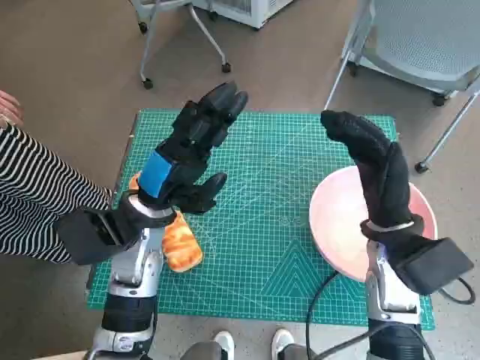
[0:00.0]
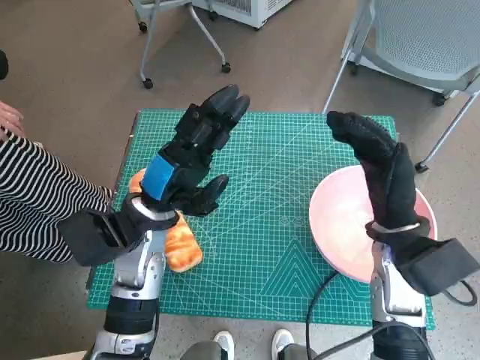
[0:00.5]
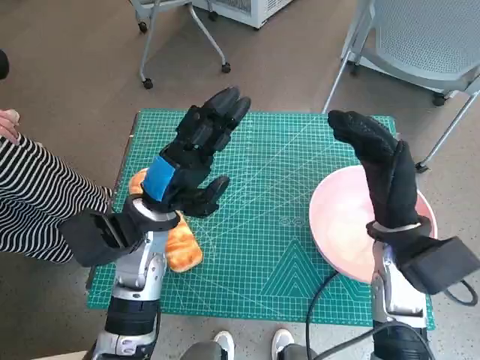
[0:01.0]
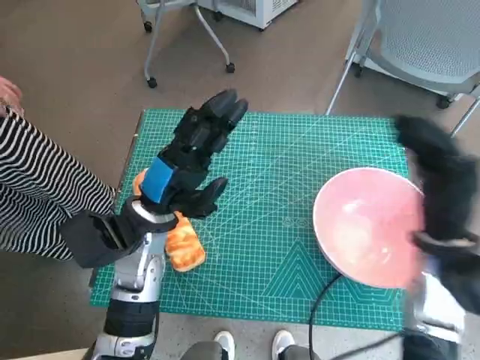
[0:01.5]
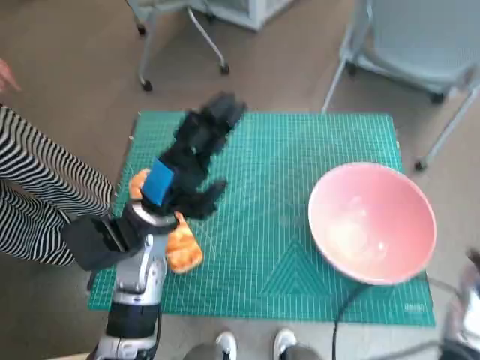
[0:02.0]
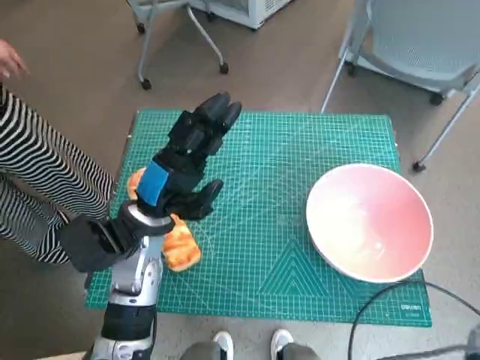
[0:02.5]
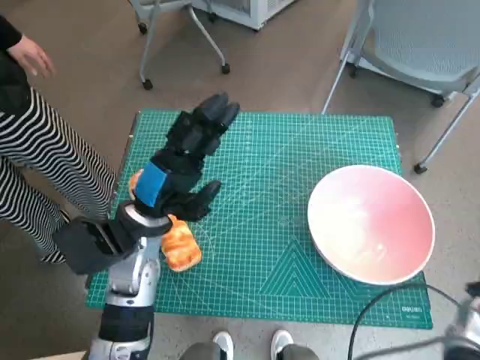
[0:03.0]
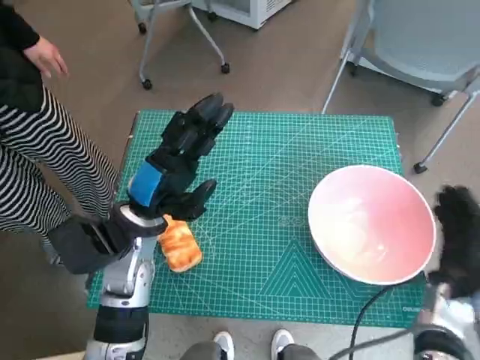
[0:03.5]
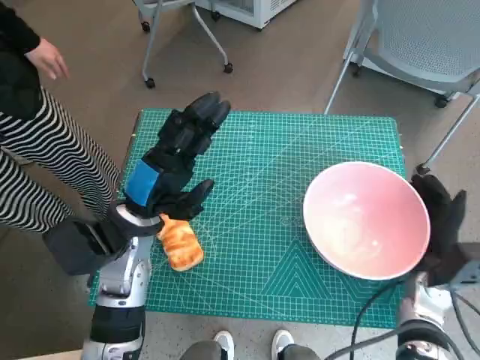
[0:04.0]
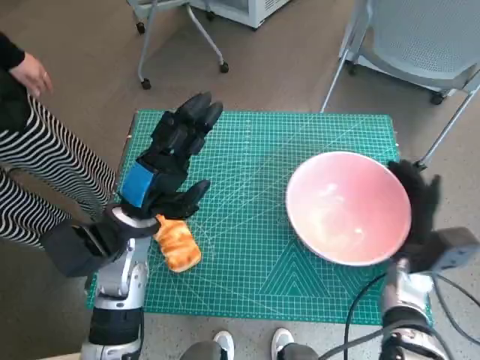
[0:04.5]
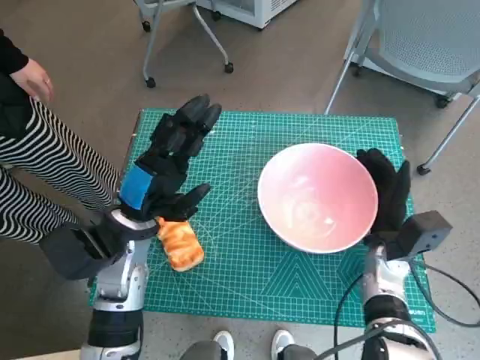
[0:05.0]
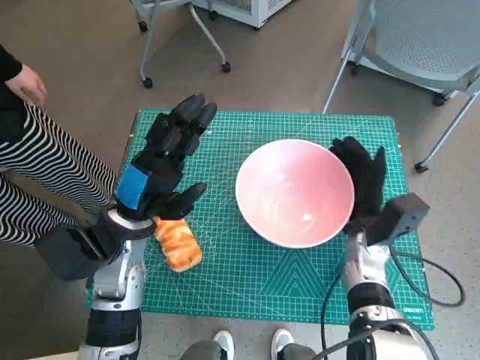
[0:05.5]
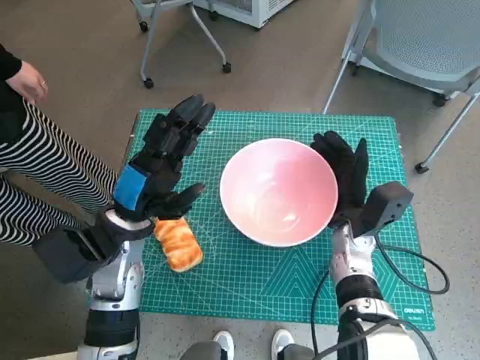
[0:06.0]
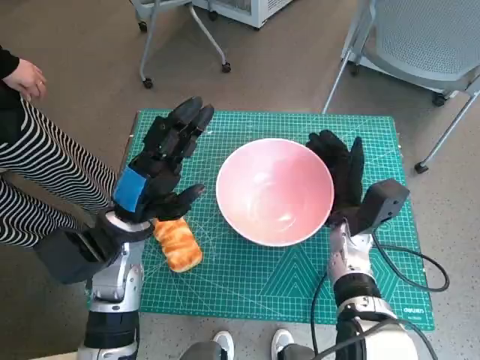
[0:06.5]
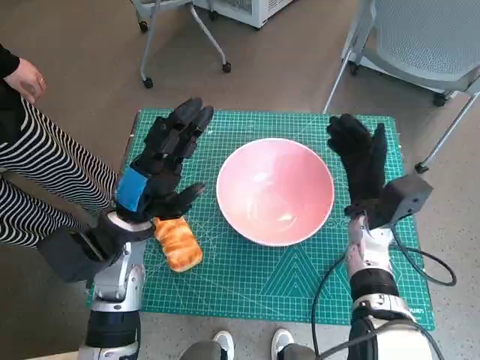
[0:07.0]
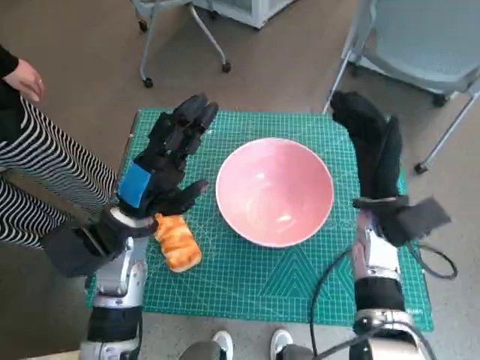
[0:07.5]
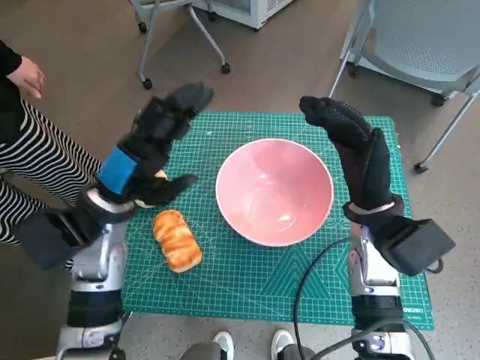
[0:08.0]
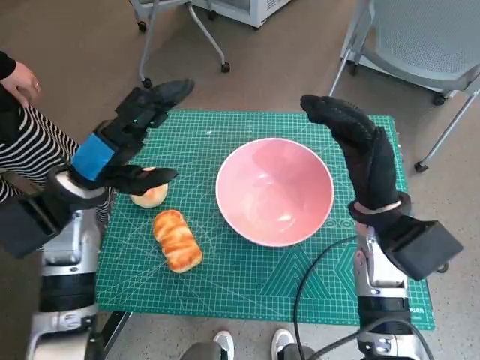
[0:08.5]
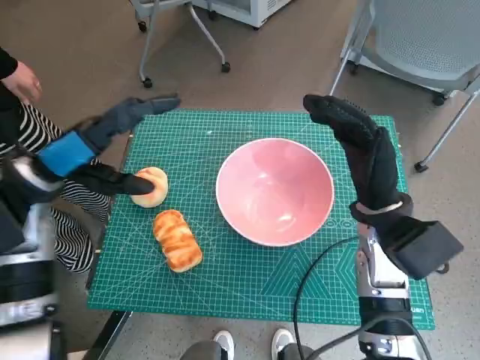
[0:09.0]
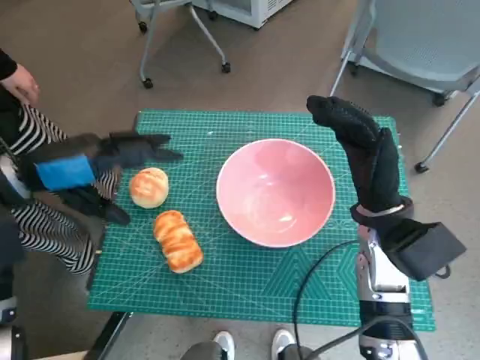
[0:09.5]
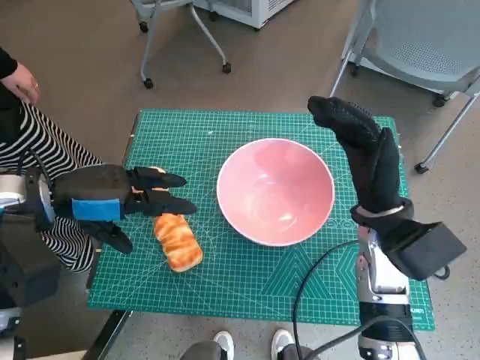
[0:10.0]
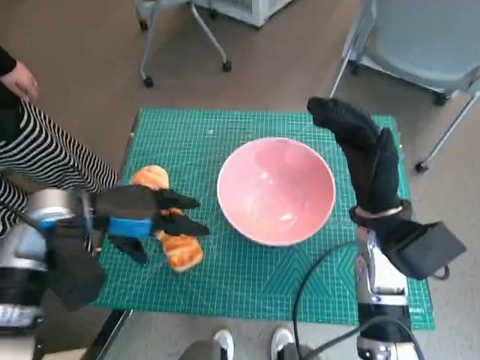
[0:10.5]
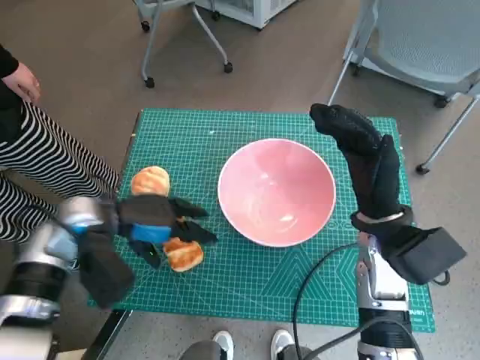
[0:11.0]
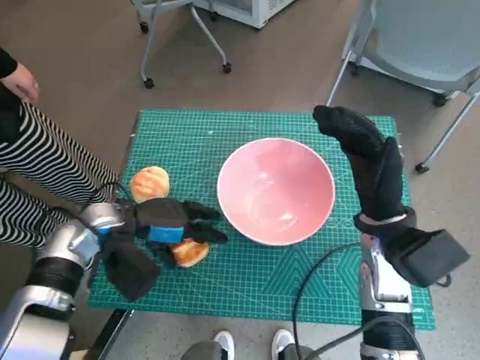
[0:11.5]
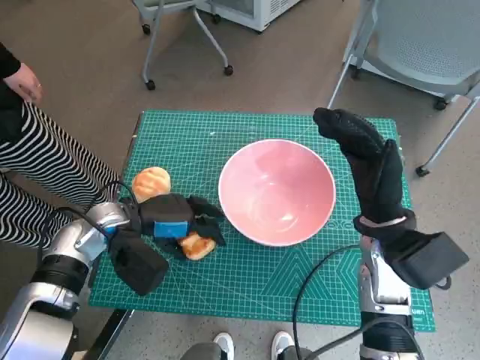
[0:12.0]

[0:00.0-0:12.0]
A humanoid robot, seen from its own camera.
Task of the whole recording: Push the bowl into the center of the table and put the bread into the bowl.
Step, 0:00.0 to 0:07.0: Move the pink bowl to the center of table with right hand.
0:02.0 to 0:04.0: The right hand travels downward by some 10 cm.
0:04.0 to 0:06.0: The right hand heads to the left and forward, covering some 15 cm.
0:06.0 to 0:08.0: The right hand heads upward, covering roughly 10 cm.
0:08.0 to 0:10.0: The left hand travels to the left and upward by roughly 10 cm.
0:10.0 to 0:12.0: The left hand heads downward and to the right, covering some 15 cm.

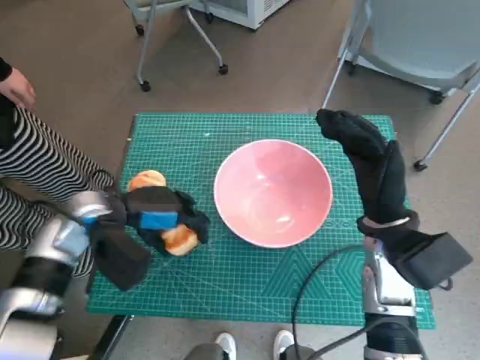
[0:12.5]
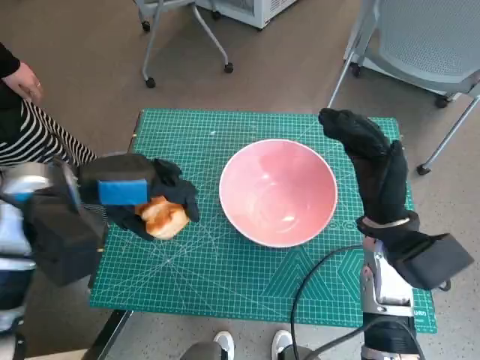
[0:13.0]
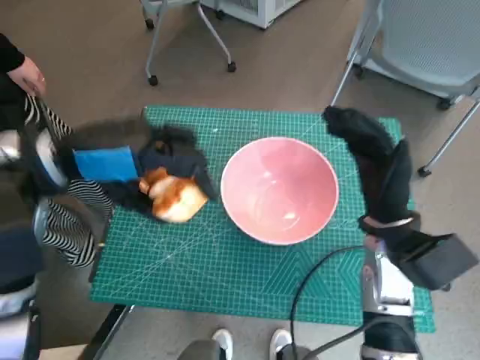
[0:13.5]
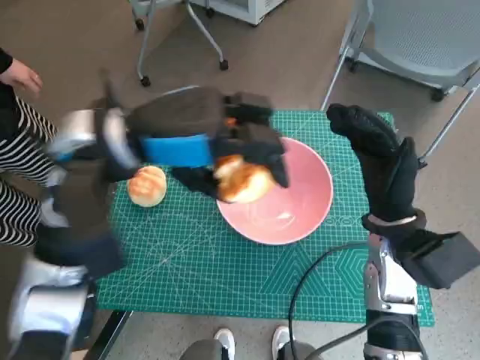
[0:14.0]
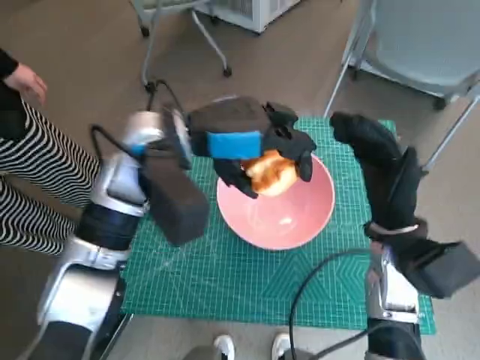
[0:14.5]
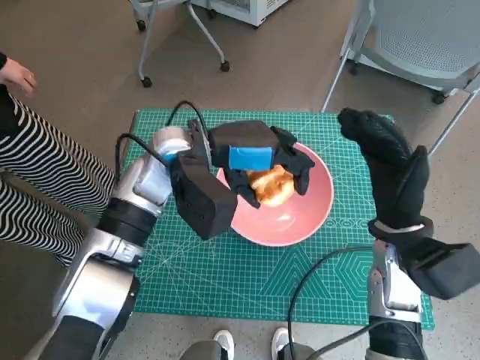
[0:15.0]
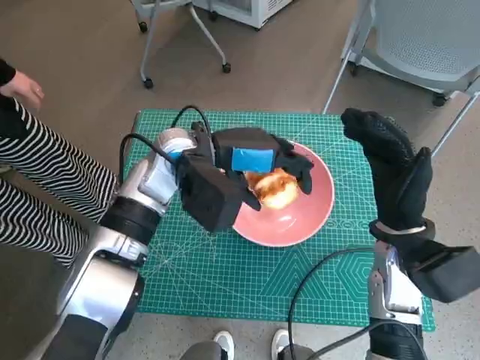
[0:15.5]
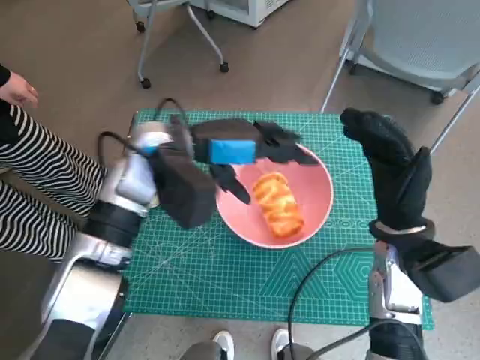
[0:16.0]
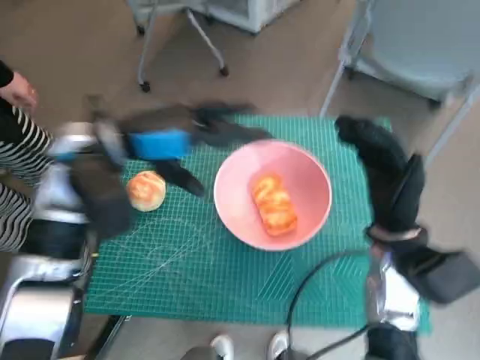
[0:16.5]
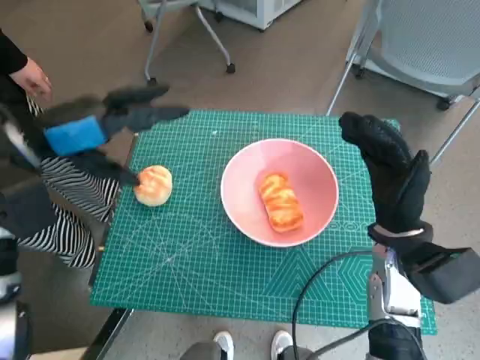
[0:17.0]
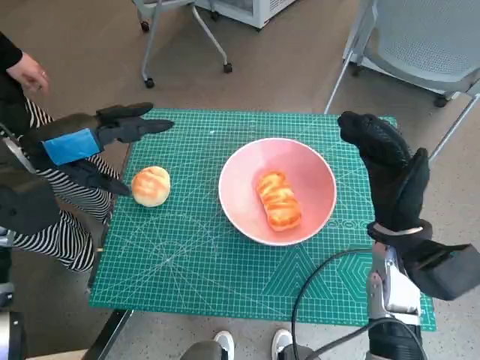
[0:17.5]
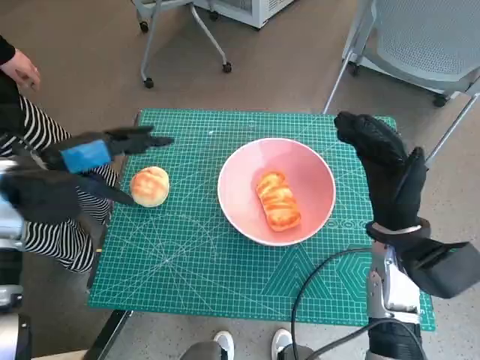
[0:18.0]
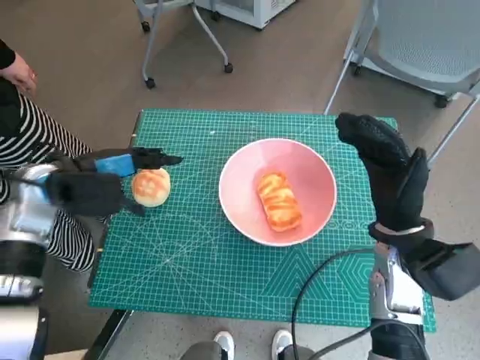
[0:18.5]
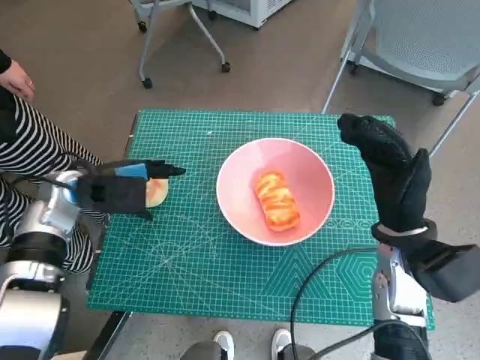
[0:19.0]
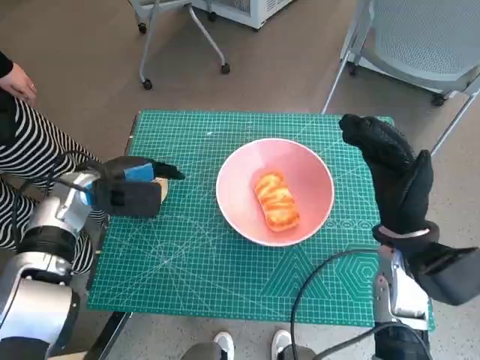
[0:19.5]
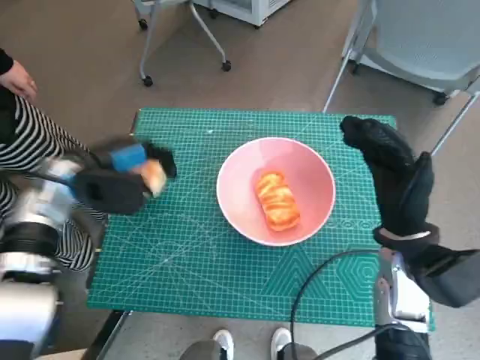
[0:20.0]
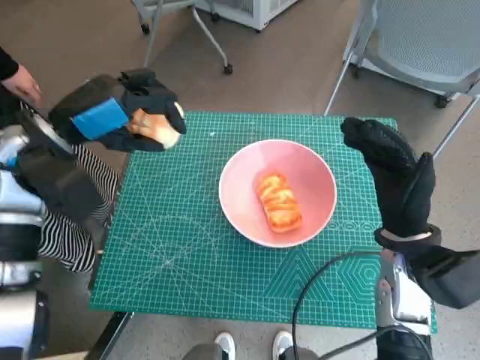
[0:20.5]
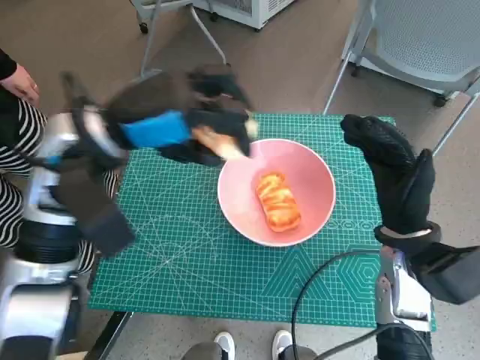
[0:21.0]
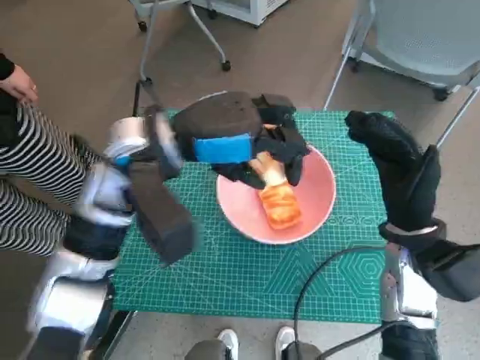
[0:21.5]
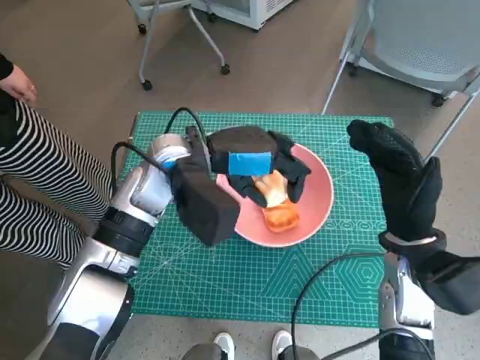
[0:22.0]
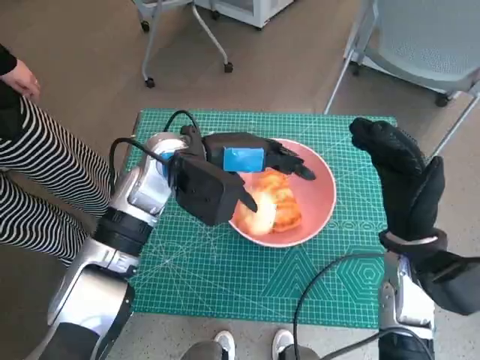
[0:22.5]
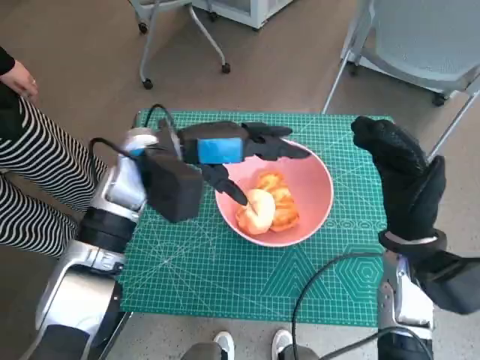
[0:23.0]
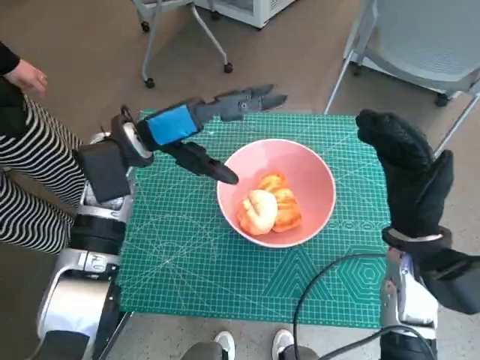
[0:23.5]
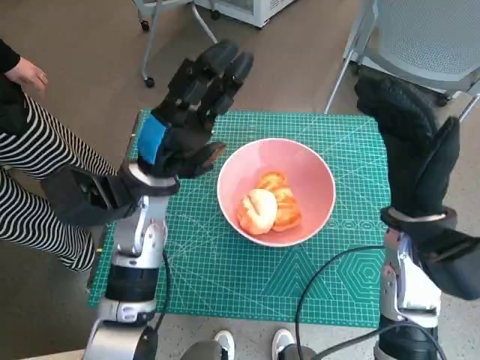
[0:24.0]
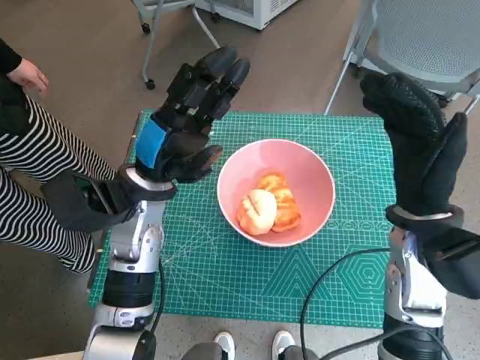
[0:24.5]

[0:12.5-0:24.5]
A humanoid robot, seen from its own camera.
Task of the whole recording: Push the bowl into the center of the table and put the bread into the bowl.
Step, 0:12.5 to 0:15.5: Place the long bread in pink bowl with left hand.
Step, 0:16.0 to 0:19.5: Grasp the round bread with left hand.
Step, 0:20.0 to 0:22.5: Place the round bread in pink bowl with left hand.
0:12.5 to 0:14.5: The left hand goes approximately 15 cm upward and to the right.
0:14.5 to 0:16.5: The left hand is displaced to the left by roughly 5 cm.
0:16.5 to 0:18.5: The left hand travels to the left and downward by about 10 cm.
0:18.5 to 0:20.5: The left hand moves upward, about 5 cm.
0:20.5 to 0:22.5: The left hand moves to the right, some 15 cm.
0:22.5 to 0:24.5: The right hand shifts by about 5 cm, while the left hand shifts by about 5 cm.

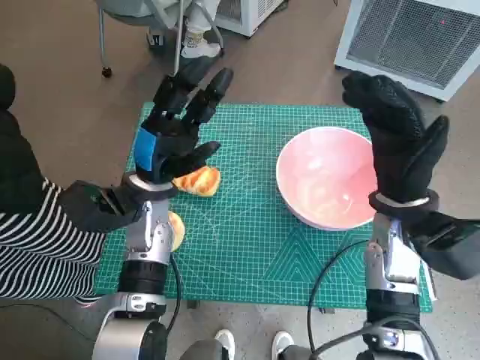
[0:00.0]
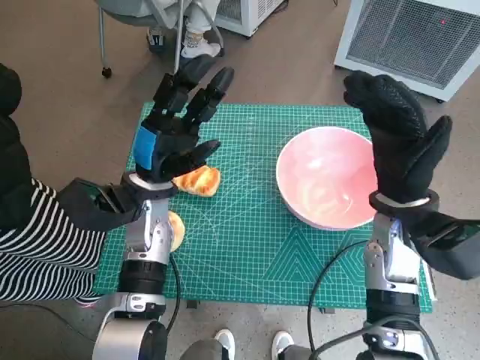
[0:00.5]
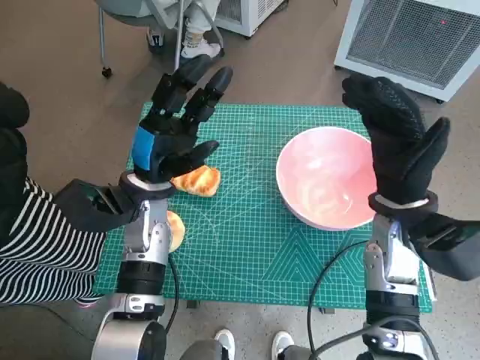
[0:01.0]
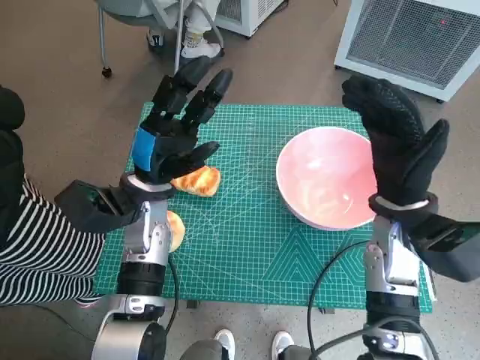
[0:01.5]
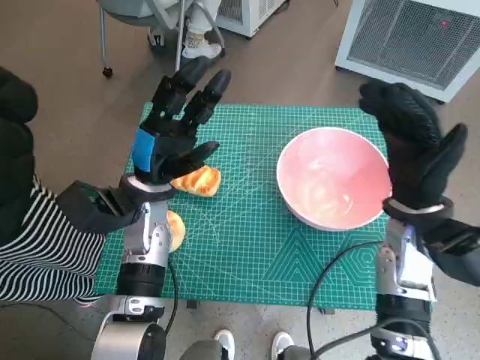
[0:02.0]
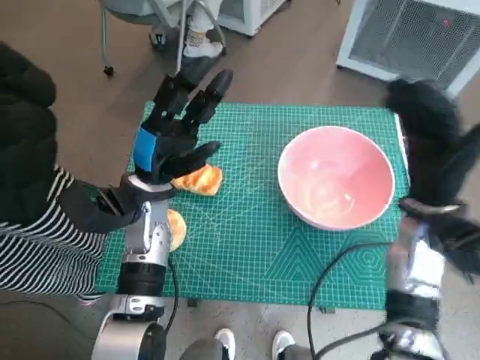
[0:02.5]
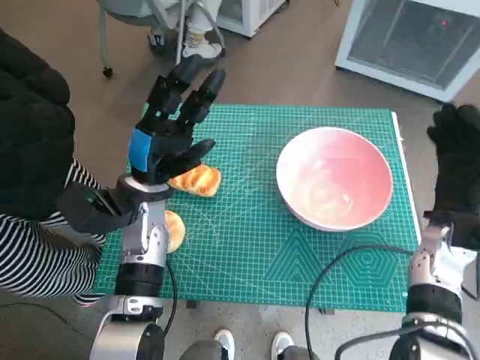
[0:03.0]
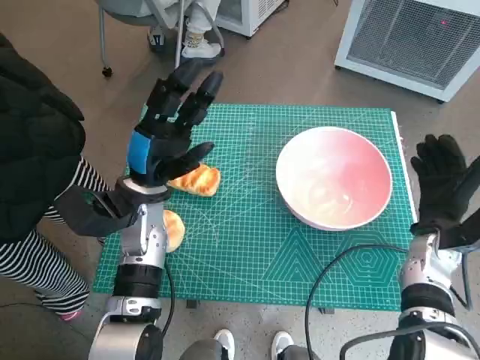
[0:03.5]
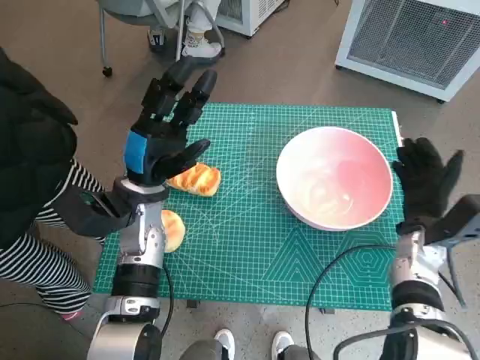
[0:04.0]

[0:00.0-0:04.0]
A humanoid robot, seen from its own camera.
Task of the whole recording: Push the bowl into the center of the table and put the bread into the bowl.
0:02.0 to 0:04.0: The right hand shifts roughly 10 cm downward and to the right.
